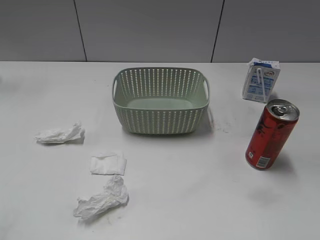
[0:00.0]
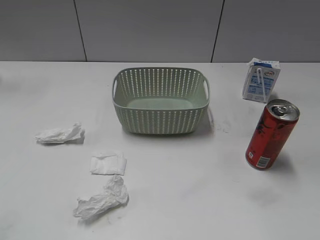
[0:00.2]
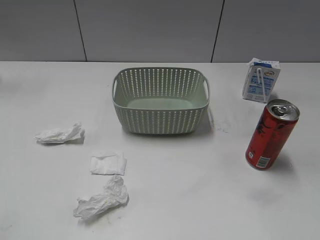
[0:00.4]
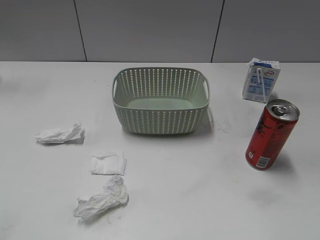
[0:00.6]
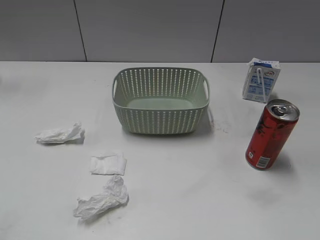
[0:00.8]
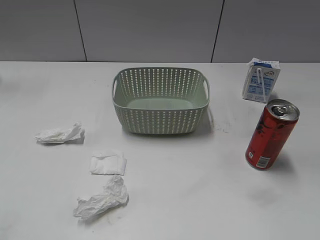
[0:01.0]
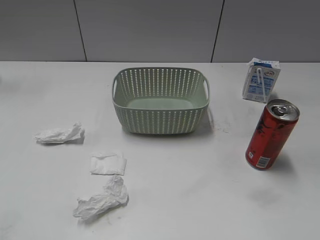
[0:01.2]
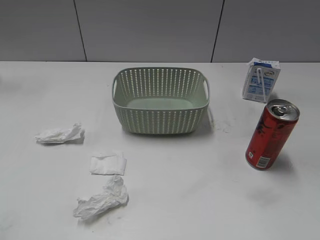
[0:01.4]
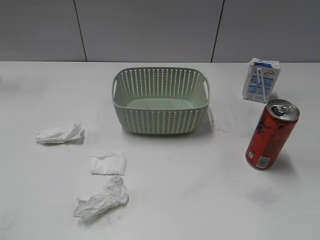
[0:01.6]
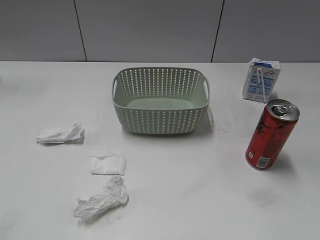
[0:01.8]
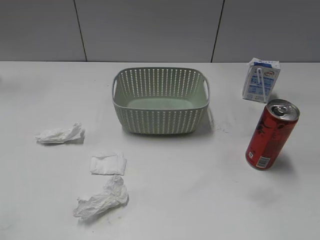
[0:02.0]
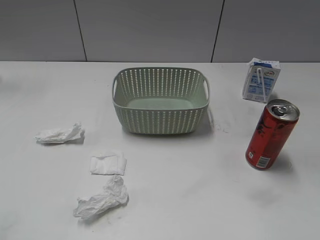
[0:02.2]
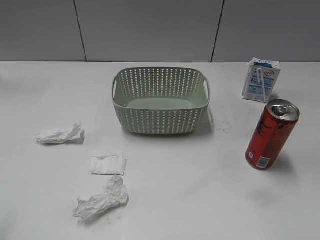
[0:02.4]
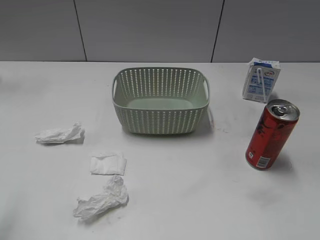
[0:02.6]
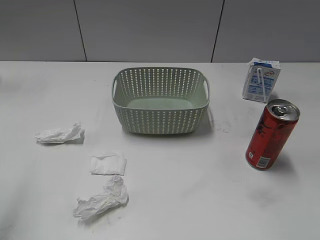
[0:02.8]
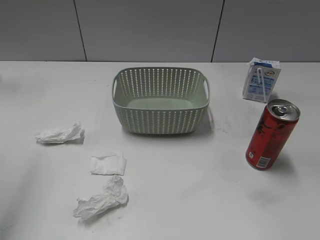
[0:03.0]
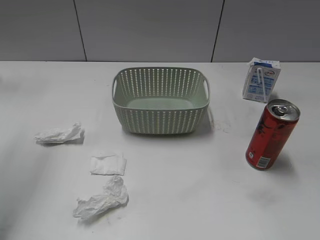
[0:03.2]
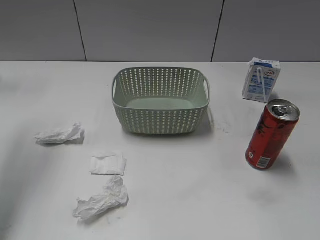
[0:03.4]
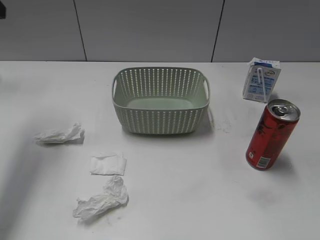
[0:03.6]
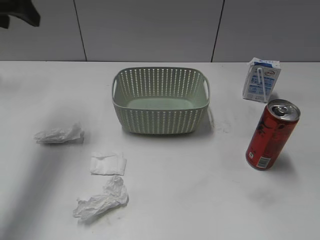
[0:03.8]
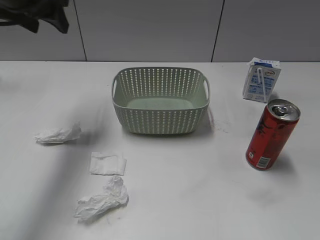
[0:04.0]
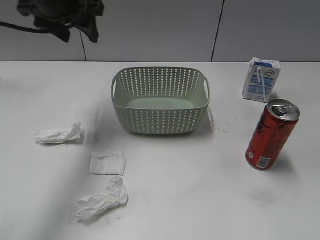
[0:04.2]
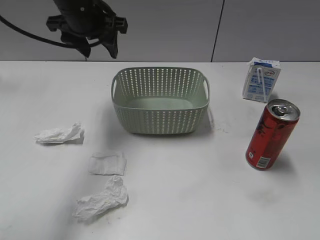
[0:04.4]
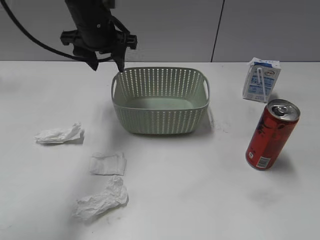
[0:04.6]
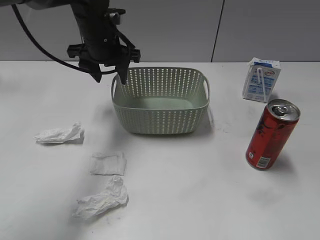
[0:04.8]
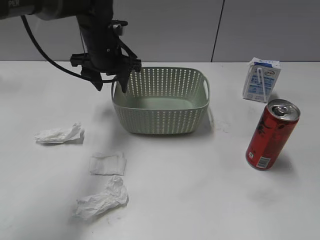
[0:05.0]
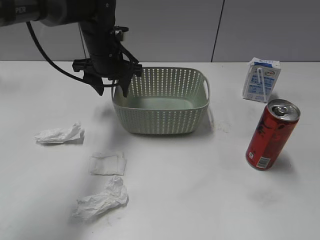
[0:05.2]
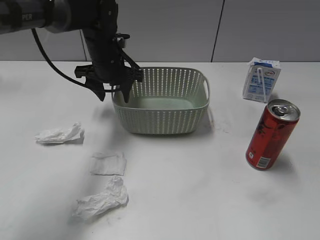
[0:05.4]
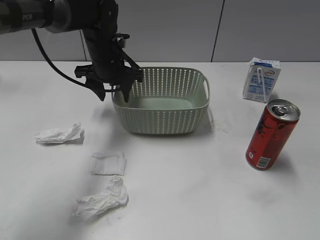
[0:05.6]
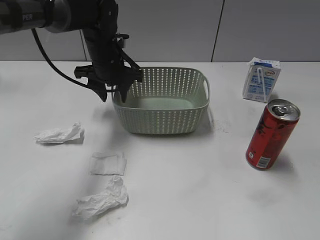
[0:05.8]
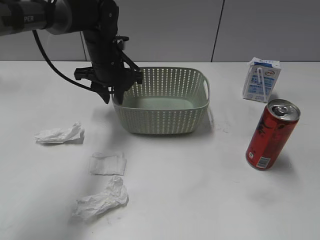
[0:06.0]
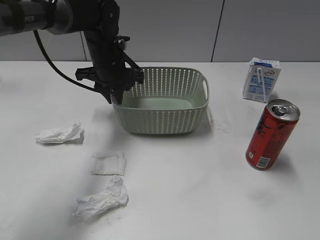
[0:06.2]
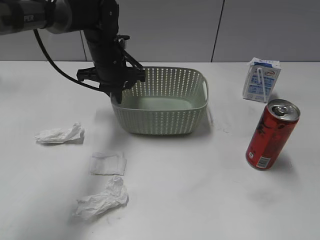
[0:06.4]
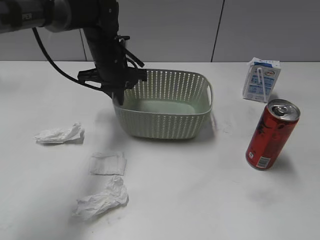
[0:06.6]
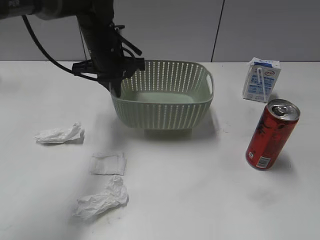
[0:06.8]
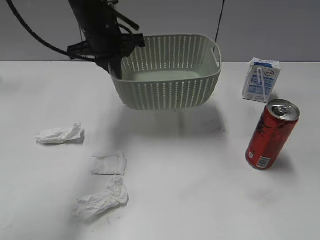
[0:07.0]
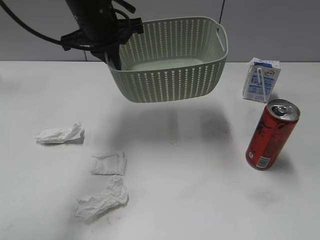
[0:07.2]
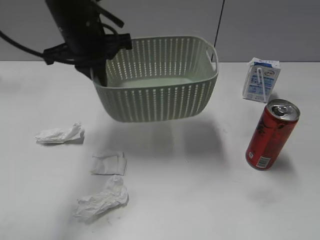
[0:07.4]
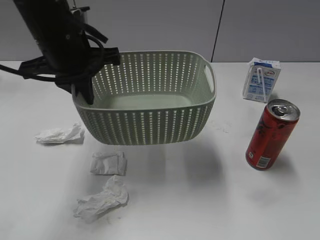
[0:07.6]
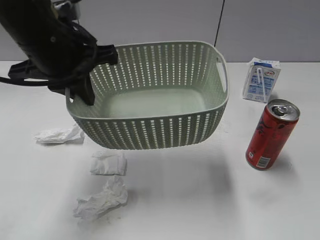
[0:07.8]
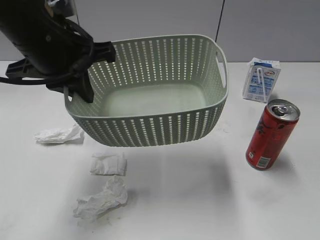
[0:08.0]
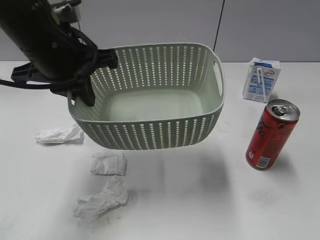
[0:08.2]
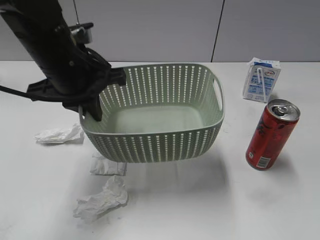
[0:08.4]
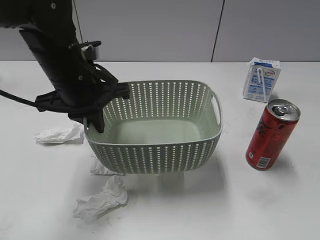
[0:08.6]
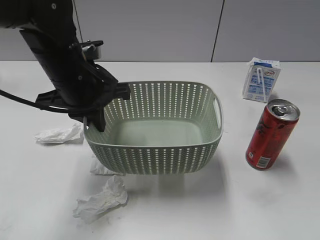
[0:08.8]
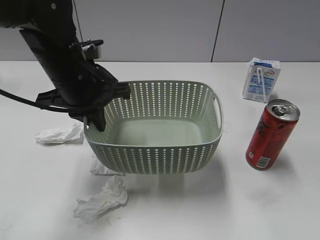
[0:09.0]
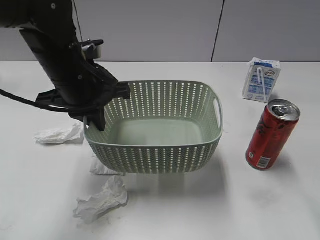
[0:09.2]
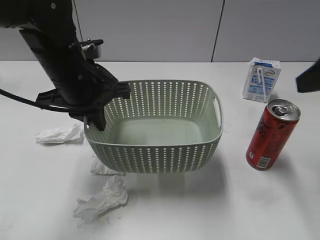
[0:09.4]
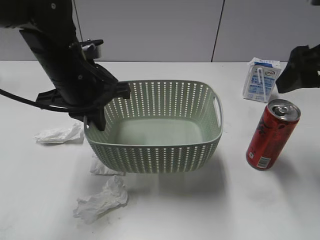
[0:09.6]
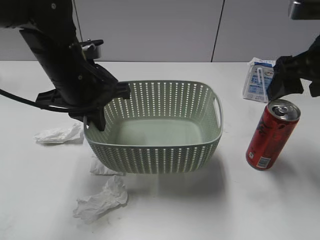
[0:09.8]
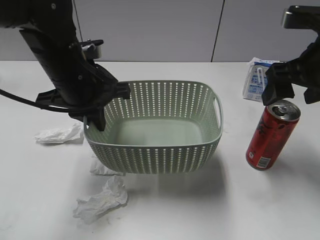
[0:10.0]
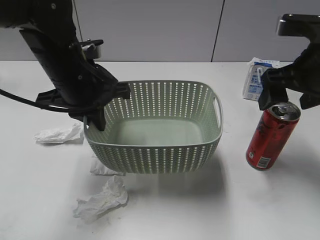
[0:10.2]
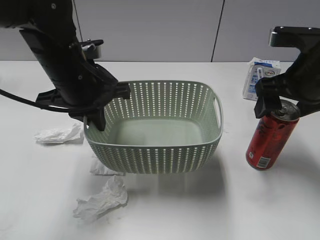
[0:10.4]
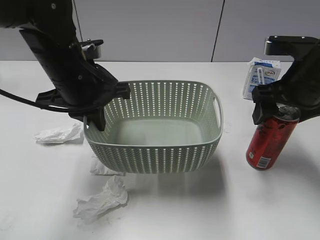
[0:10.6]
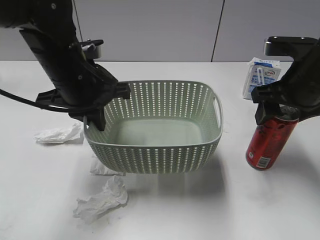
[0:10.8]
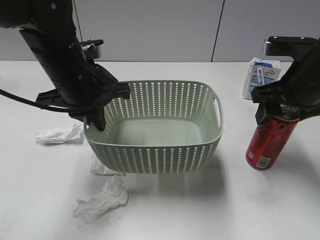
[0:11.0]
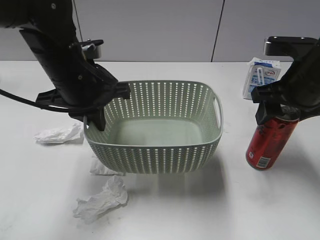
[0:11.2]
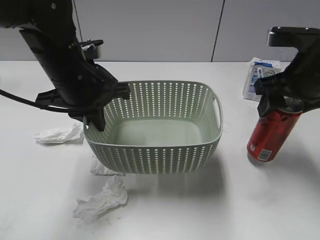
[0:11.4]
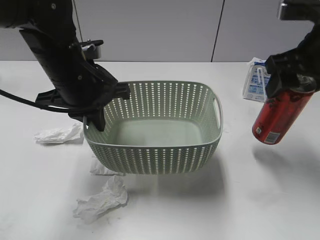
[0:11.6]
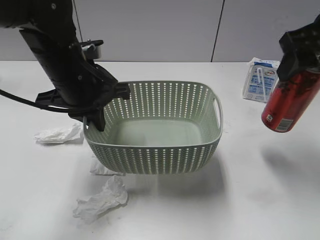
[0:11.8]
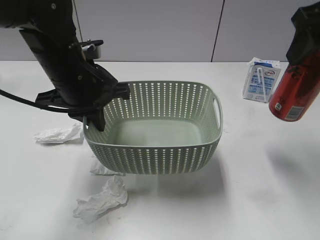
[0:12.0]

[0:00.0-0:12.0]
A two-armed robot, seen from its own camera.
Step, 0:03.6 to 0:06.4: Grasp the basket with left gripper.
Step, 0:06.6 to 0:09.2: Lift the basket with left gripper.
Step, 0:09.4 to 0:11.2: Grasp the cola can with right gripper.
0:01.6 to 0:03.0: The left gripper goes roughly 25 cm forward and upward.
0:03.0 to 0:04.4: The left gripper heads to the right, forward and downward, covering approximately 30 cm.
0:04.4 to 0:06.0: The left gripper travels downward by about 10 cm, and closes up.
0:06.0 to 0:07.6: The left gripper heads backward and upward, covering about 20 cm, and closes its fingers.
0:07.6 to 0:09.0: The right gripper moves forward and upward, roughly 10 cm, and opens its fingers, while the left gripper heads downward, covering roughly 5 cm.
0:09.0 to 0:10.4: The right gripper moves forward and downward, approximately 20 cm.
0:10.4 to 0:12.0: The right gripper travels upward by roughly 15 cm, and closes.

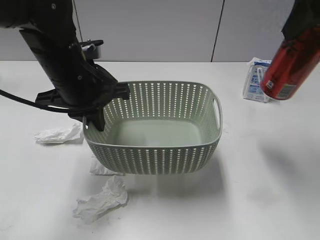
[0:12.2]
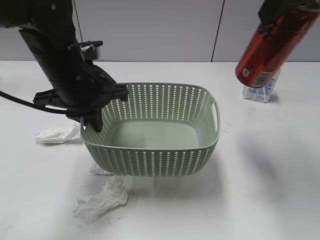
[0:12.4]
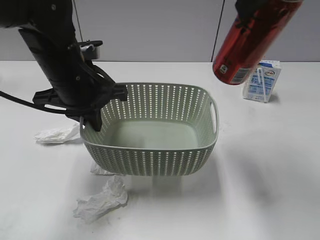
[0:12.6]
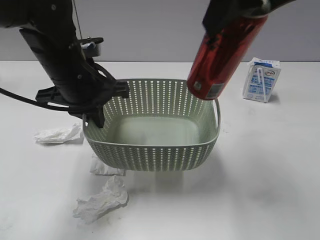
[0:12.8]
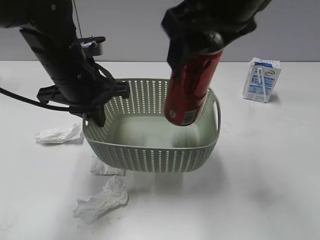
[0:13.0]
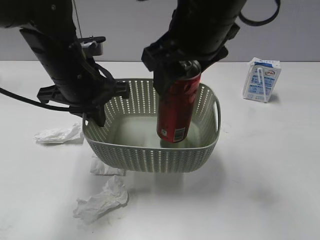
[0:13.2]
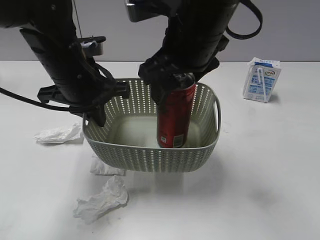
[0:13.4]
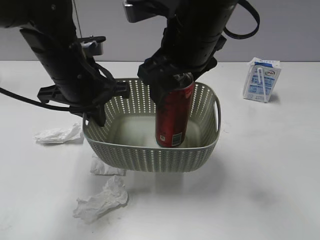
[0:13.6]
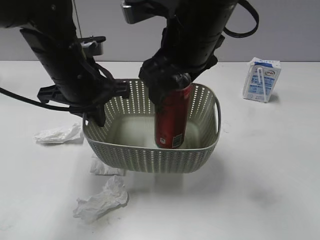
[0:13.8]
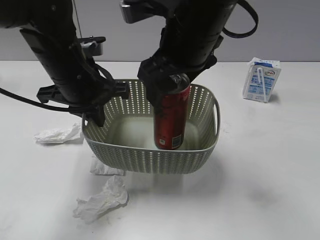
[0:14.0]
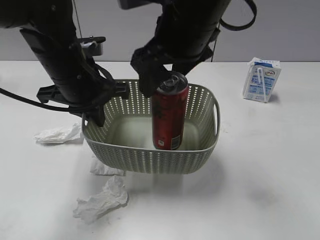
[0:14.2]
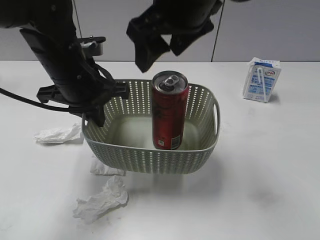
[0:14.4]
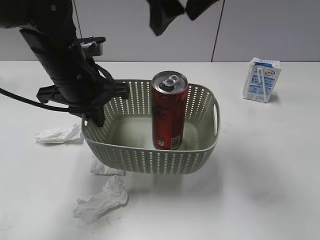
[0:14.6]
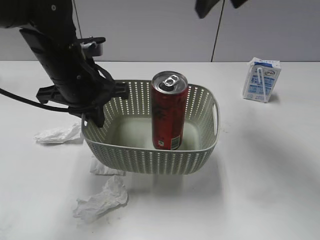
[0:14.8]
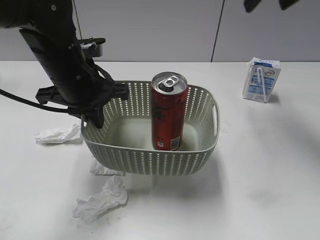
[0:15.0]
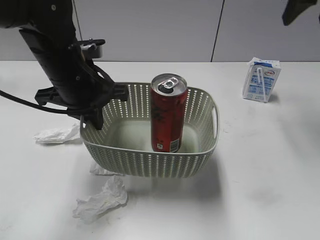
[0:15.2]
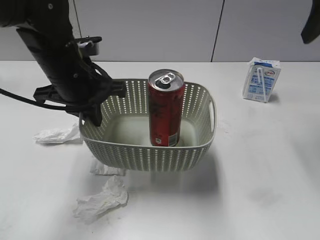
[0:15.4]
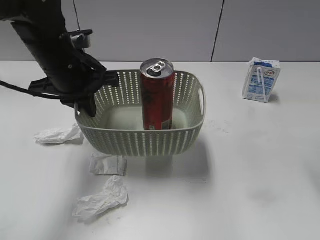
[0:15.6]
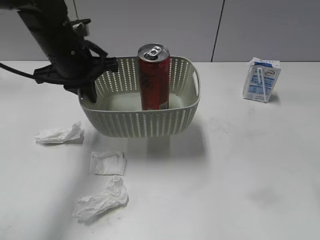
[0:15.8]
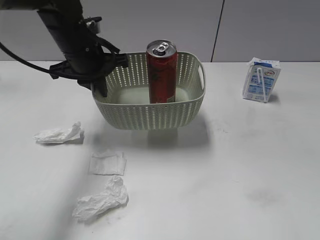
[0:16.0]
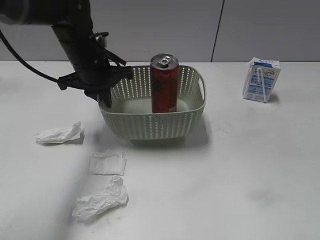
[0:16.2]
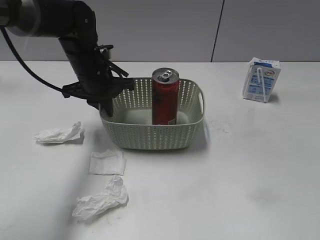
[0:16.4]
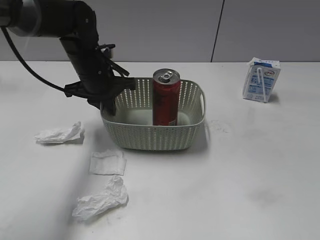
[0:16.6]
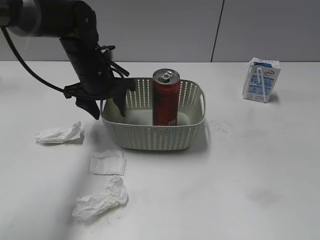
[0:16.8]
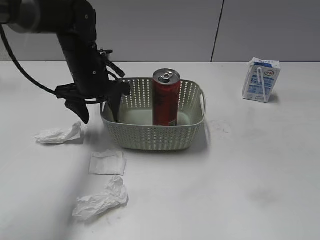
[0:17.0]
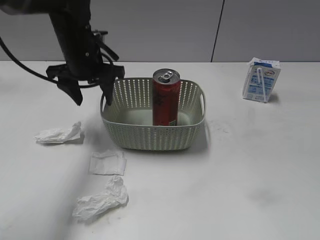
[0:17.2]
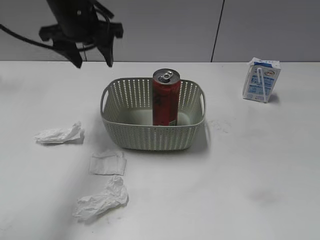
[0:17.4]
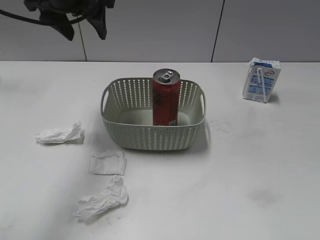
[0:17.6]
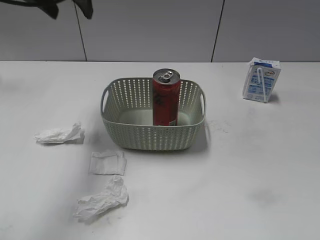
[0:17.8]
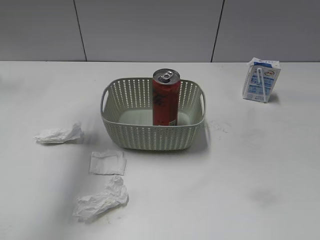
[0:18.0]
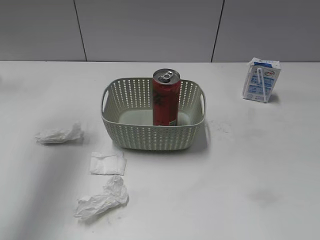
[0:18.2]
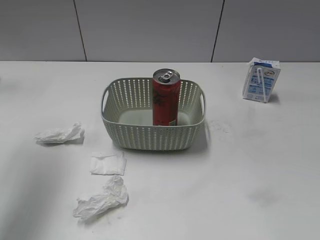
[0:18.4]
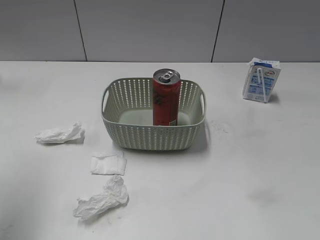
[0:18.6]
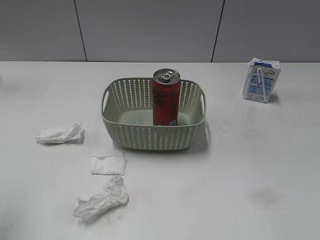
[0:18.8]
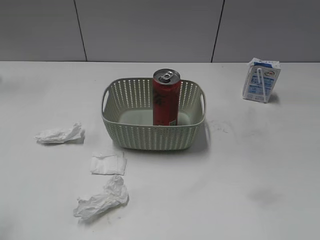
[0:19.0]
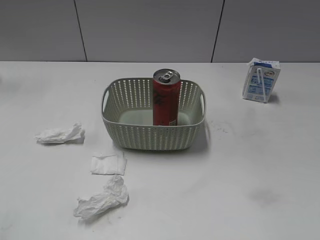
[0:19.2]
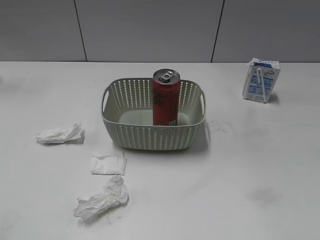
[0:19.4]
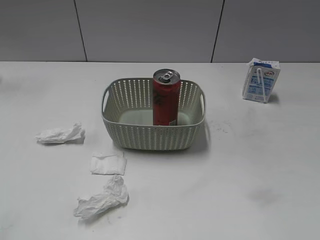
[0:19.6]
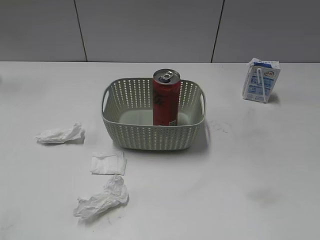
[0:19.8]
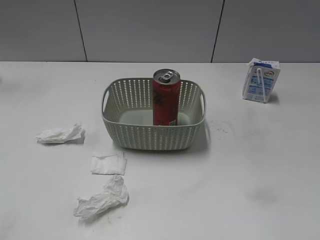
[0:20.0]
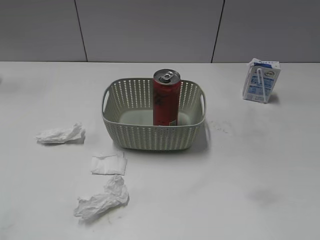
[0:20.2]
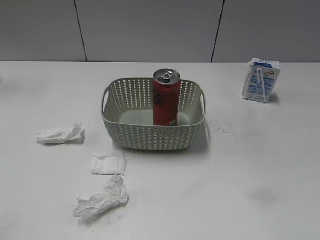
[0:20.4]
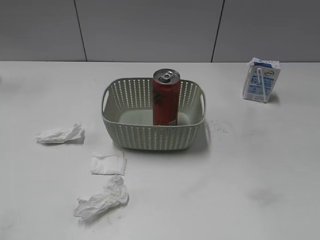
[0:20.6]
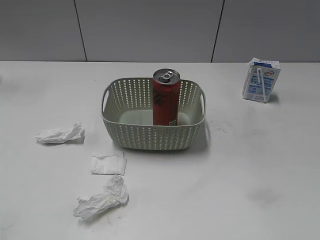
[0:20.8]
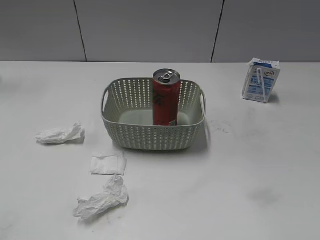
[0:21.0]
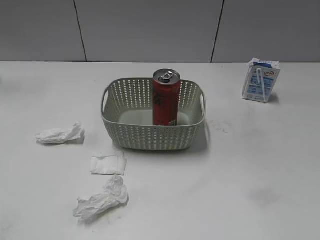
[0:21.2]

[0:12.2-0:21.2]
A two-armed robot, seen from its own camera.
Step, 0:12.2 to 0:14.4: Place the cola can in the basket with right gripper.
Step, 0:14.6 to 0:17.0: Place the basket on the table with left gripper.
0:12.2 to 0:13.8: The right gripper heads to the left and downward, covering some 20 cm, and opens up.
0:13.8 to 0:15.2: The right gripper is displaced to the right by some 25 cm.
0:15.2 to 0:16.6: The right gripper moves backward, some 35 cm, while the left gripper travels forward and downward by about 10 cm.
0:16.6 to 0:18.2: The left gripper shifts about 25 cm upward and to the left, and opens its fingers.
0:18.2 to 0:19.8: The left gripper heads backward, covering some 30 cm.

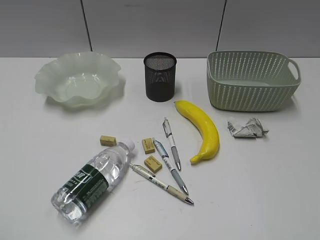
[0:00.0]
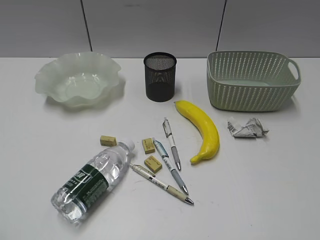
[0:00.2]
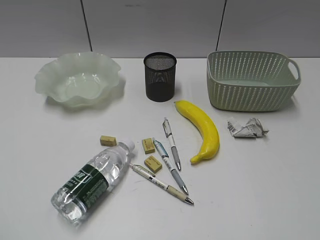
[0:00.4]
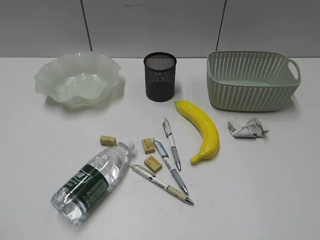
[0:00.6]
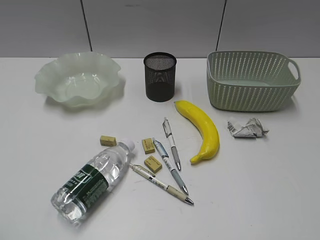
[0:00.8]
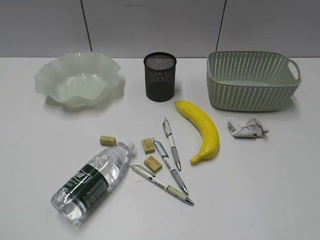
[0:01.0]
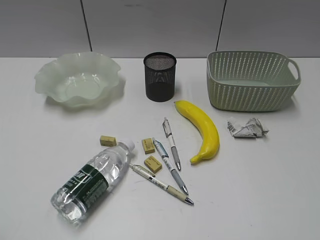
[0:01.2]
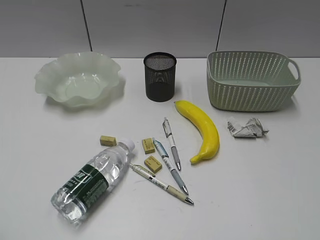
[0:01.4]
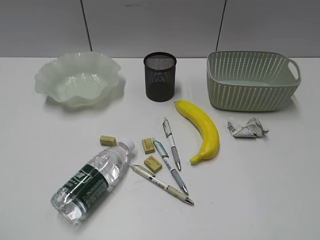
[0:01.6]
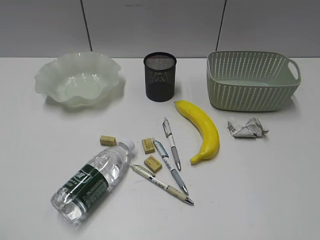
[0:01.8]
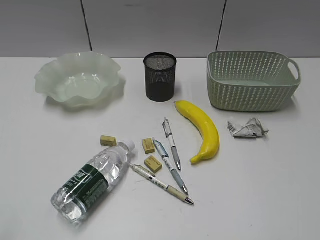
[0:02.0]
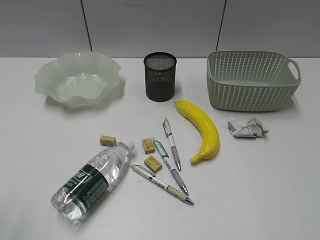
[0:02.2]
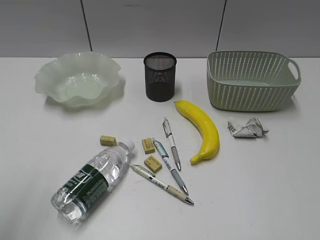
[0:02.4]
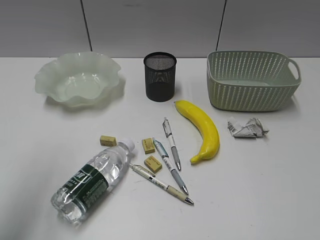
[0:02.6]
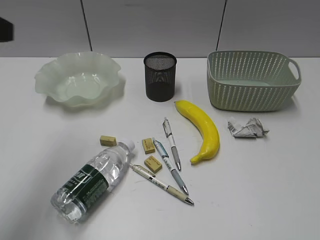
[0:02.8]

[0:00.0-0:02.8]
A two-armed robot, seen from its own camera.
0:01.4 to 0:02.8: The left gripper travels forward by roughly 20 cm.
